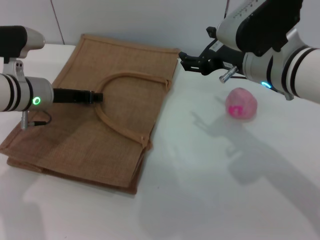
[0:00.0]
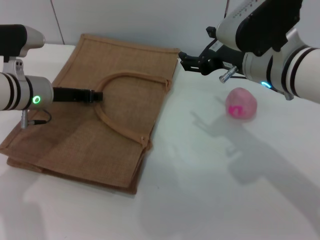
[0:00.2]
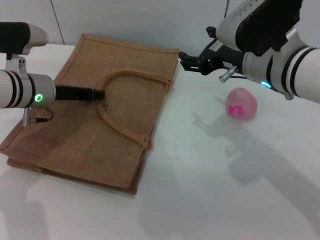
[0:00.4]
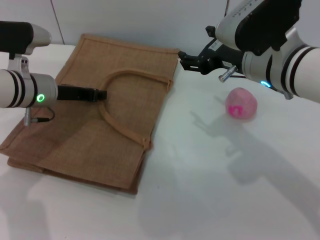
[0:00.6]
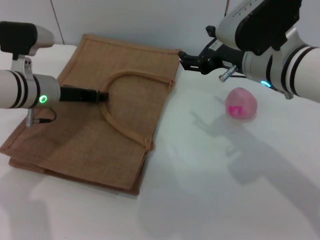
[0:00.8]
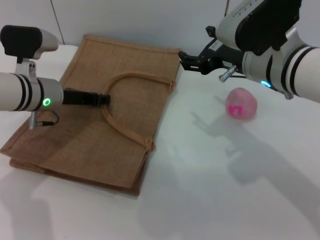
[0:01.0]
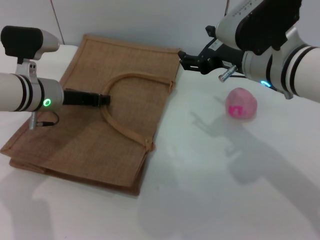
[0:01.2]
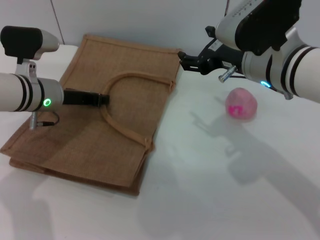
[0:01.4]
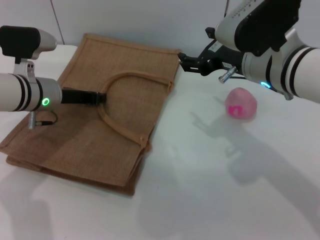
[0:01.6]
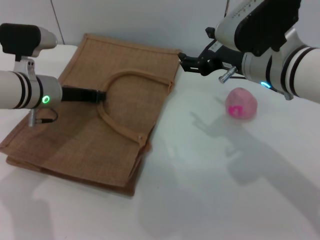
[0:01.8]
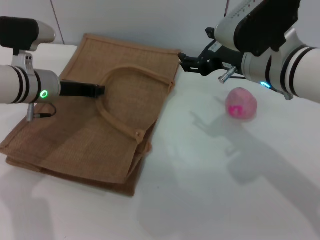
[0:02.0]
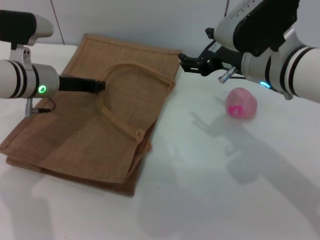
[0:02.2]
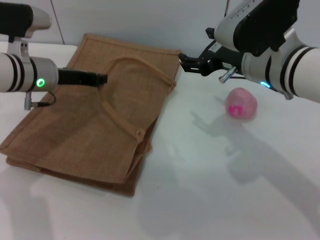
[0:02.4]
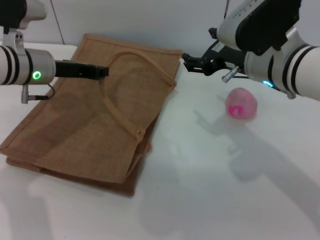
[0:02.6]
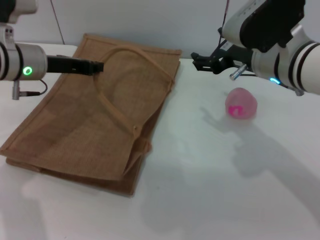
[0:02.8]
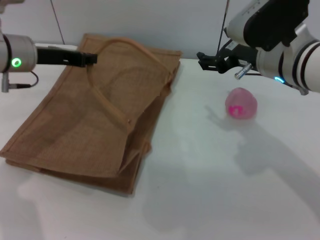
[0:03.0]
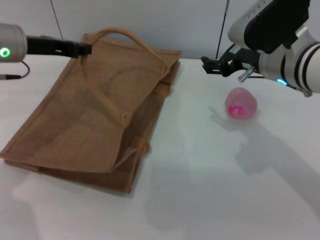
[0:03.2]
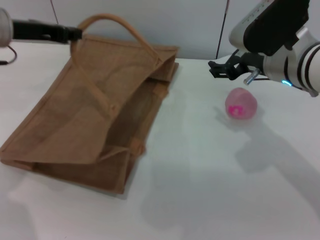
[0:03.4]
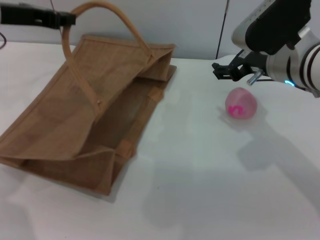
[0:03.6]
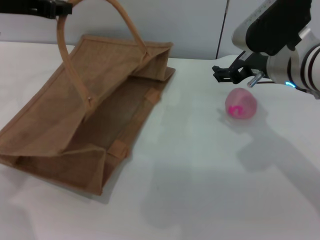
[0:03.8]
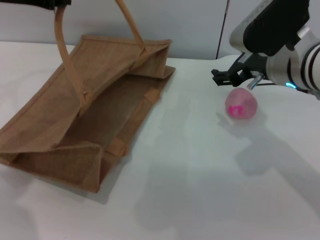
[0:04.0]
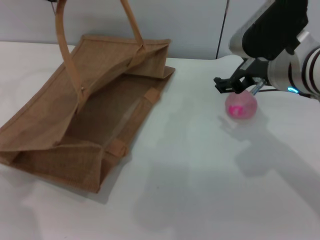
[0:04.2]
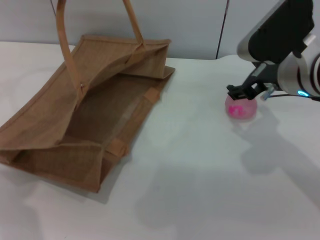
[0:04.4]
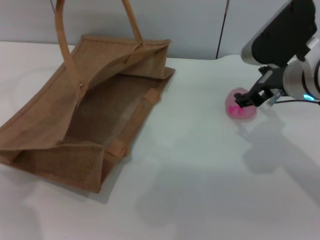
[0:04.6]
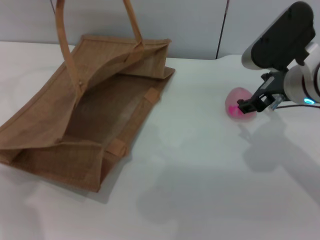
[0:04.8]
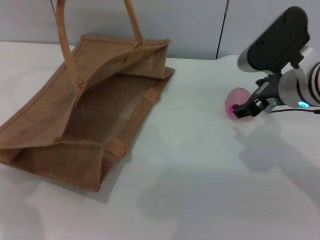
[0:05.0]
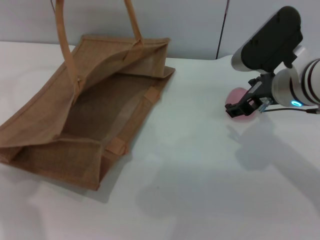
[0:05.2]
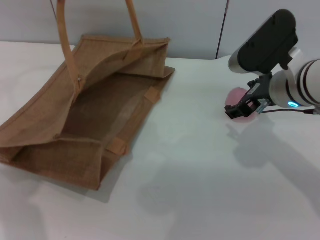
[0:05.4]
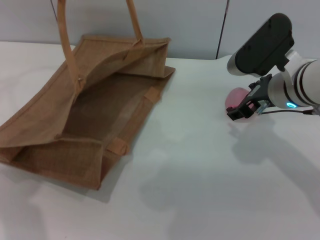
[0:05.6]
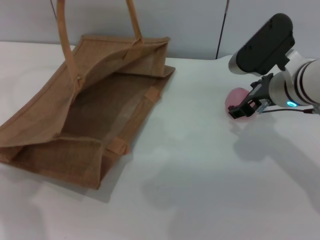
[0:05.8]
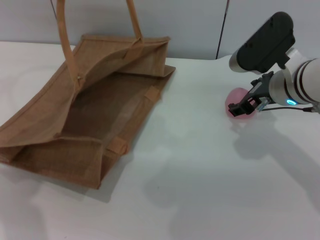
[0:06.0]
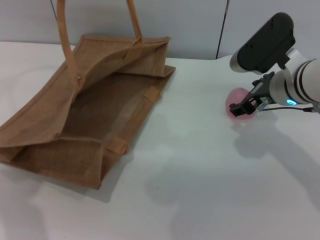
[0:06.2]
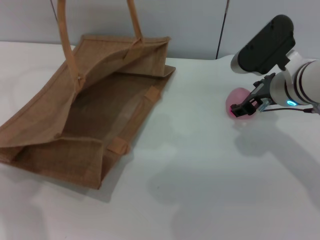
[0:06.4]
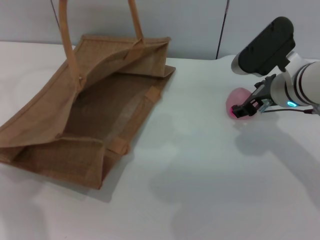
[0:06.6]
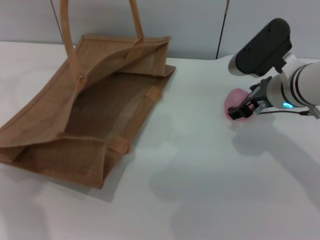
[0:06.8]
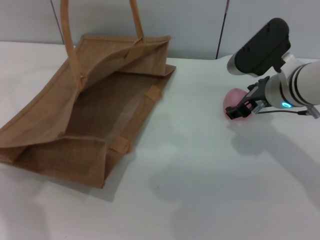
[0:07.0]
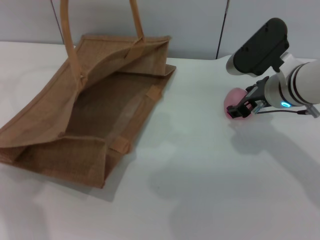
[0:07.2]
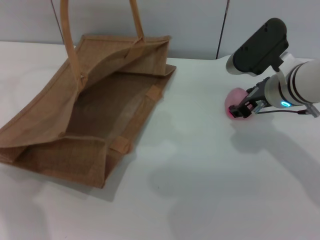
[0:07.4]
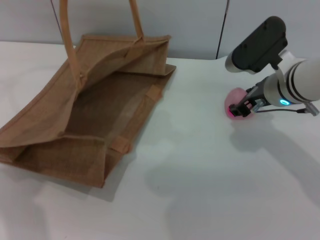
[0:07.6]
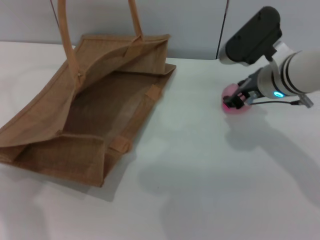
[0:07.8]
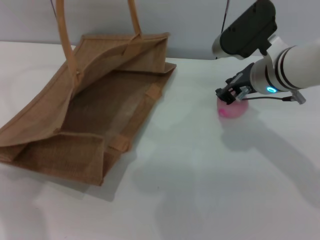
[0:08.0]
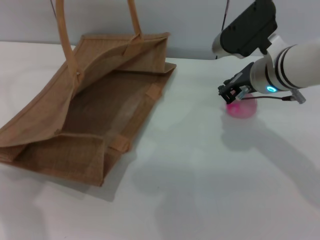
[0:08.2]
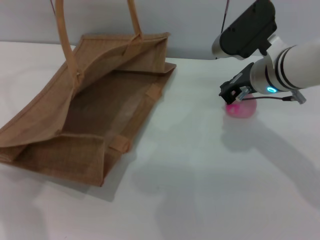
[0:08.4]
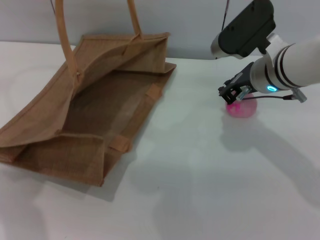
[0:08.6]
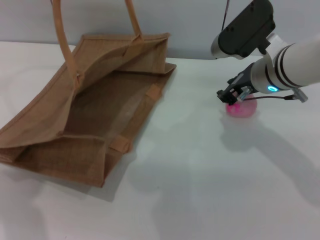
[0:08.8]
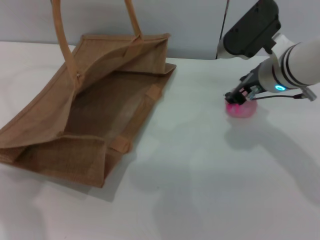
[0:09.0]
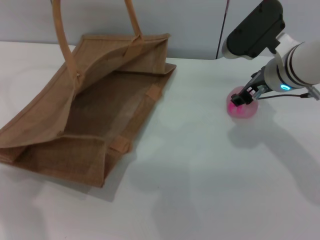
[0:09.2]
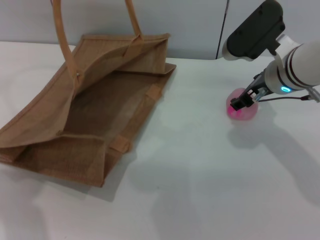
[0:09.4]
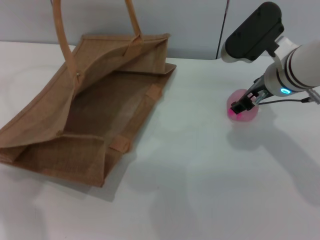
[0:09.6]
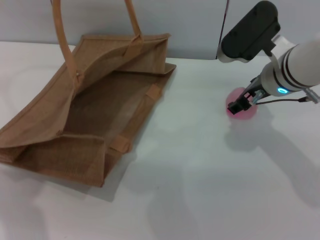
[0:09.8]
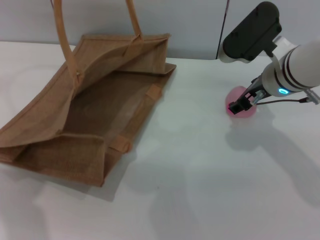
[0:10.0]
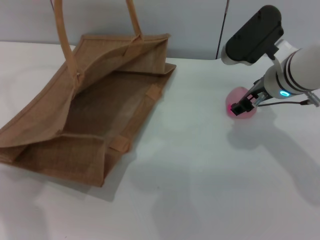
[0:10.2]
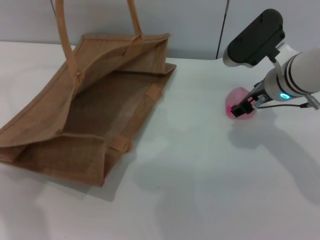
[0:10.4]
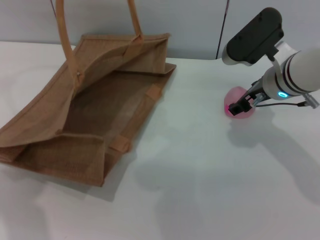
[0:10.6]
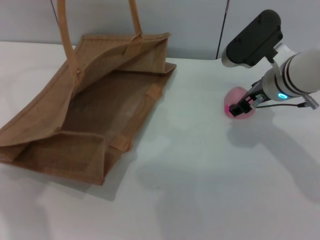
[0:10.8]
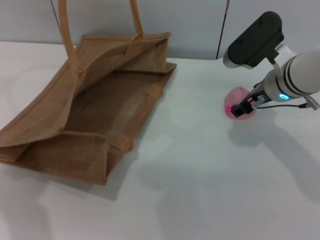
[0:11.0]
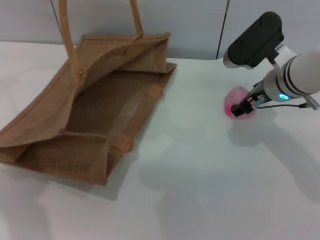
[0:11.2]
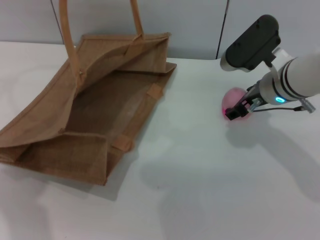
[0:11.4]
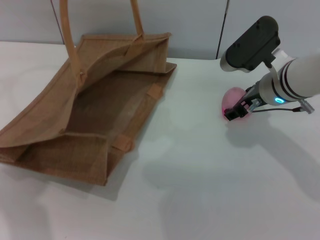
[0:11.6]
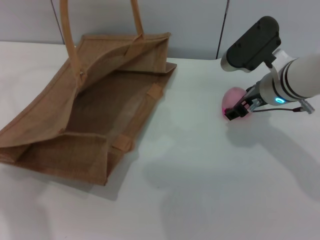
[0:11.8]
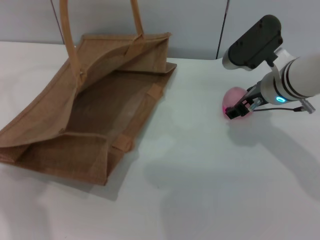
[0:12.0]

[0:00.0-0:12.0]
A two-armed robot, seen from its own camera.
Task of the whole recording: pick up the peach from the table and place it in the brown handbag.
Step, 0:00.0 to 0:02.8: Lift the woven bag with the left gripper to open it.
0:00.0 to 0:01.6: The grippers move only a little.
0:01.6 to 0:03.0: The left gripper shifts approximately 5 cm upward.
0:03.0 to 0:04.4: The left gripper moves upward, about 15 cm.
0:04.4 to 0:06.0: The grippers stay close to where they were, moving slightly.
0:06.0 to 0:07.6: The right gripper closes its fingers.
0:07.6 to 0:09.0: The right gripper closes its fingers.
0:09.0 to 0:10.4: The right gripper opens up.
0:10.4 to 0:12.0: The grippers stay close to where they were, moving slightly.

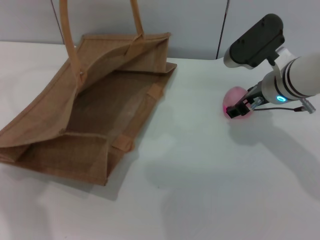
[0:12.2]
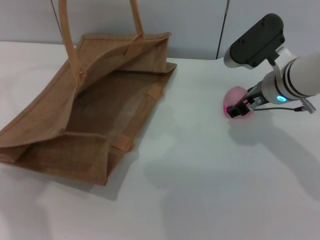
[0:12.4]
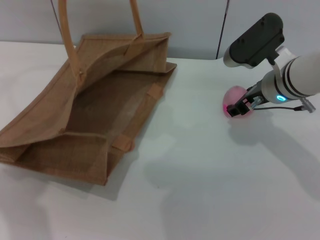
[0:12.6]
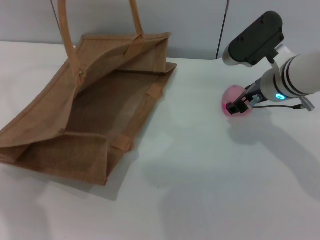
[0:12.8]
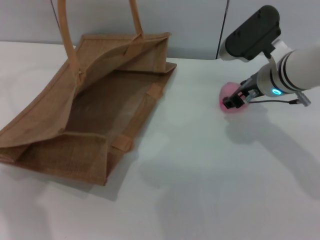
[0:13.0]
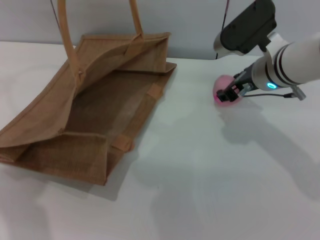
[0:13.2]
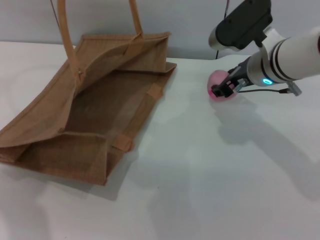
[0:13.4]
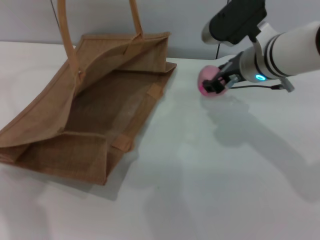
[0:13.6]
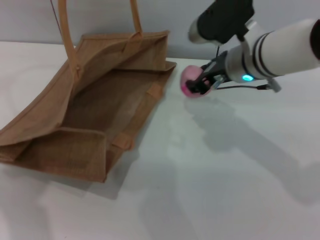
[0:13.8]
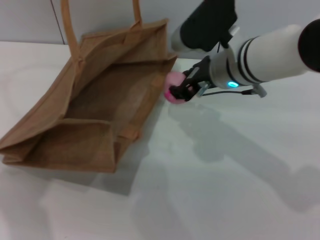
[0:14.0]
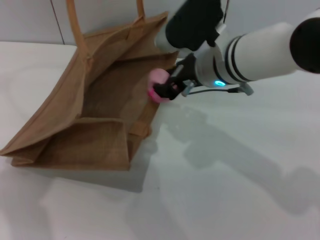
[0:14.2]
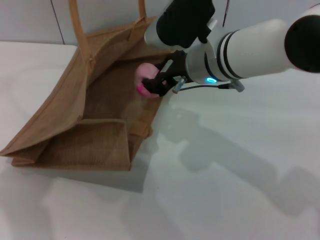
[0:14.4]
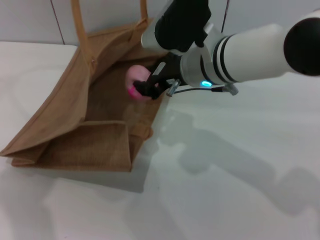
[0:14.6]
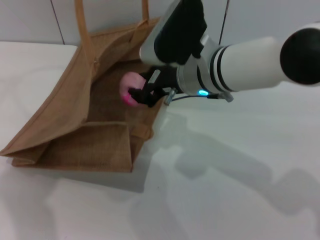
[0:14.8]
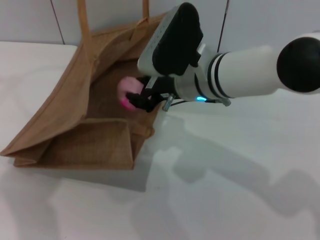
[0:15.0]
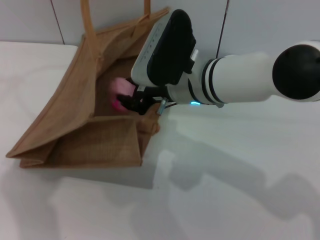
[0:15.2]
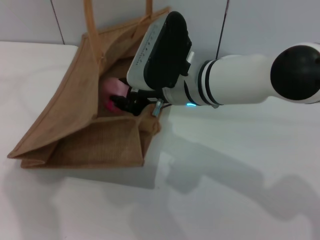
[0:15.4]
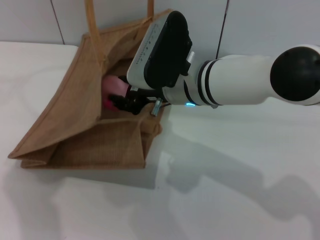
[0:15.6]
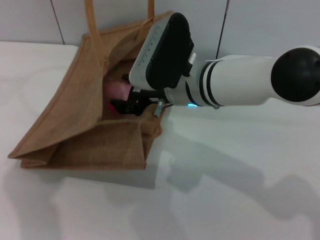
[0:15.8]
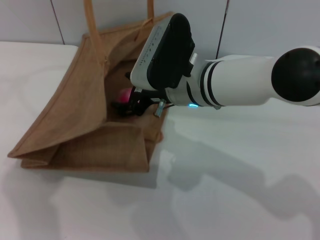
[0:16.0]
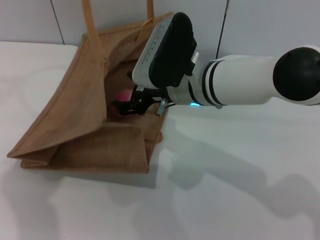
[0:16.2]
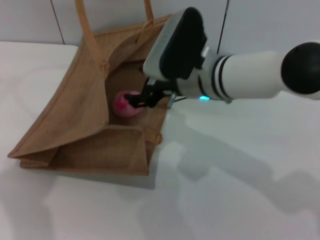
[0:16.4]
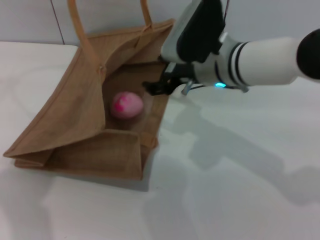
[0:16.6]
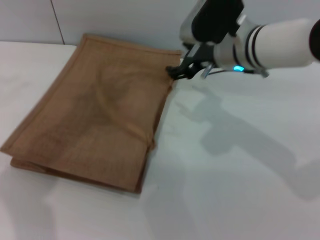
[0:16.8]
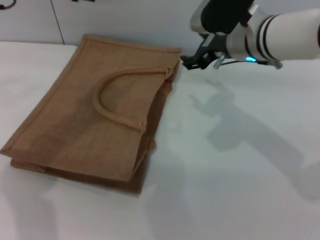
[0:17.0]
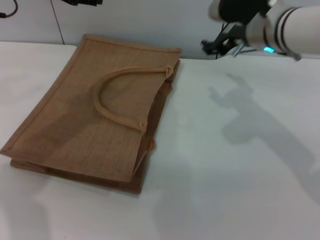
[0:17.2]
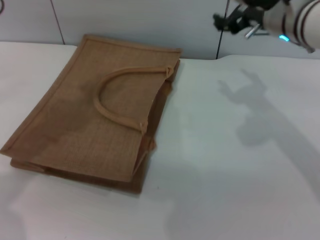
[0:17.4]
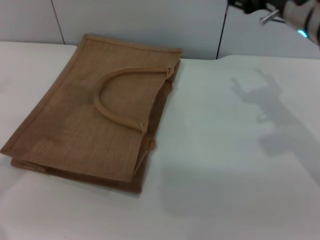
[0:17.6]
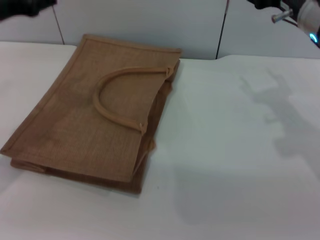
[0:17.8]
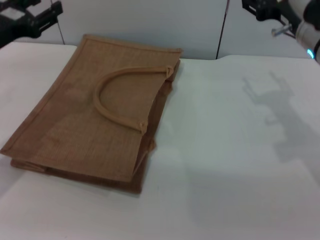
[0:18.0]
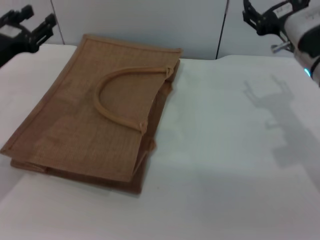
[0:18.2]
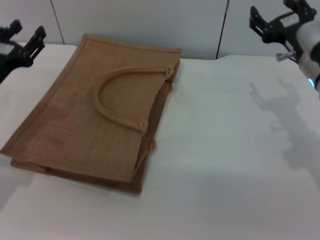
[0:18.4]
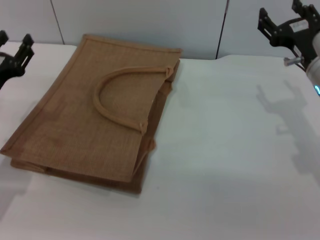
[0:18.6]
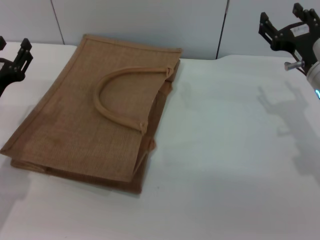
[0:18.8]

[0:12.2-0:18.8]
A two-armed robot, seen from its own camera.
Task of the whole recording: pick up the peach from the table and place it in the brown handbag.
Step, 0:13.4 to 0:16.2: Place the peach into the woven bag with the right gripper.
Step, 0:16.4 to 0:17.2: Lower the woven bag with the left gripper to close it.
0:12.2 to 0:13.8: The right gripper is displaced to the left by some 5 cm, and closes its fingers.
0:13.8 to 0:15.4: The right gripper goes approximately 5 cm to the left.
0:15.4 to 0:17.2: The left gripper travels downward by about 5 cm, and opens up; the right gripper shifts approximately 10 cm to the right and forward, and opens up.
0:17.2 to 0:18.8: The right gripper travels to the right, downward and backward by some 15 cm; the left gripper heads downward and backward, covering approximately 25 cm.

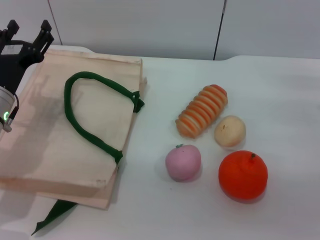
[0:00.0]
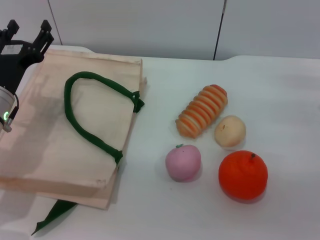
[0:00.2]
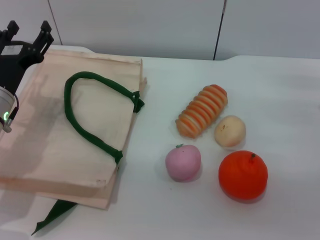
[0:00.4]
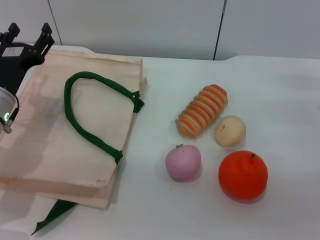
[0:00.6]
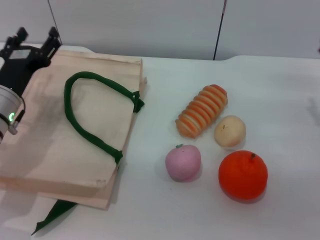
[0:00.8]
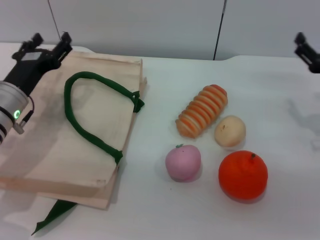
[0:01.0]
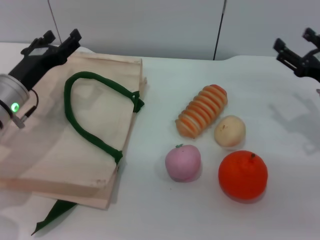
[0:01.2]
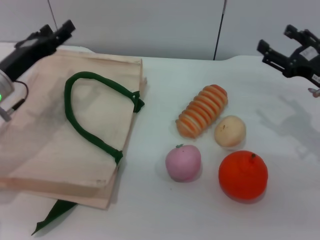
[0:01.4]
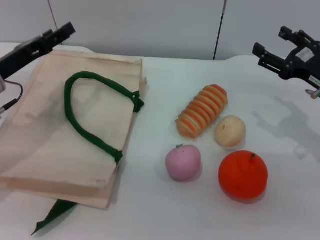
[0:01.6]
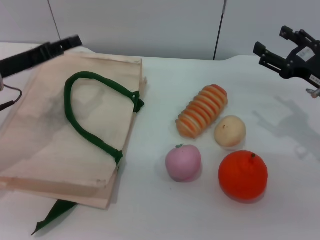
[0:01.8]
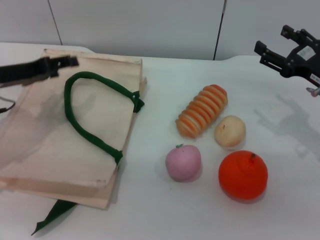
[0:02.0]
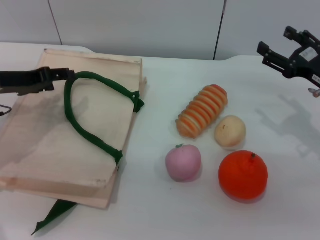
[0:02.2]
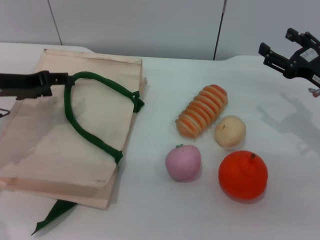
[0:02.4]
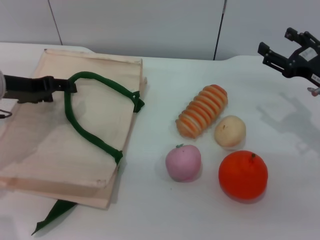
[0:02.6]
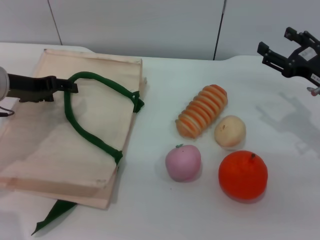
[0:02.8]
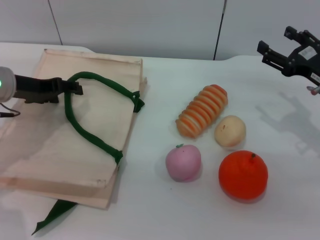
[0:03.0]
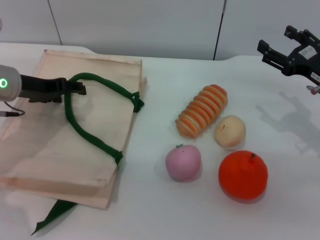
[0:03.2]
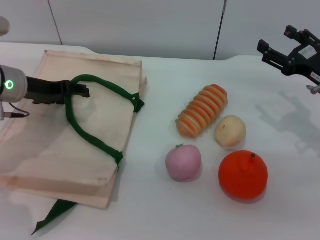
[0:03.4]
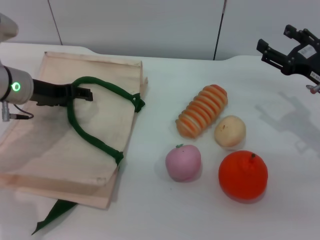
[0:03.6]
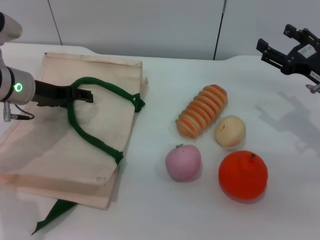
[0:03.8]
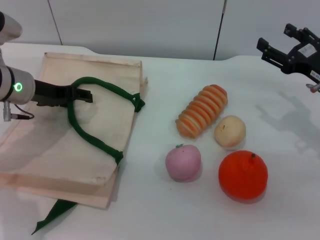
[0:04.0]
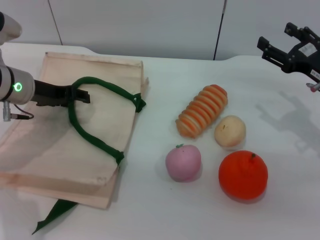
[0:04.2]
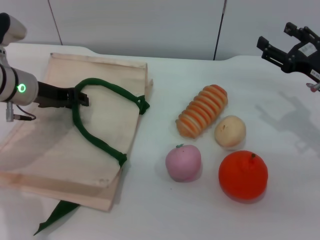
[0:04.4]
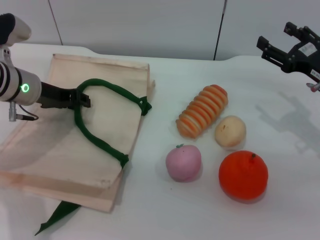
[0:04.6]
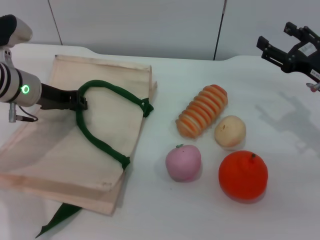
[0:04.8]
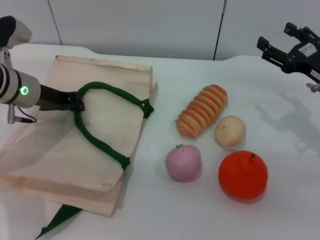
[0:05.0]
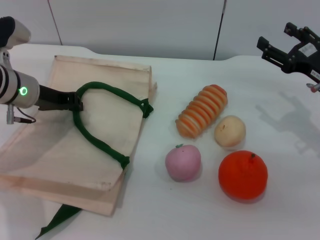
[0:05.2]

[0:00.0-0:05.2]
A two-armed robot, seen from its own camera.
Task of the whole recording: pick up the orange and peach from the table and place it in the white handbag.
0:00.0 to 0:01.8: The left gripper travels upward by some 5 cm. The right gripper ends up approximately 5 cm from where it was.
0:03.4 to 0:05.2: The left gripper closes.
